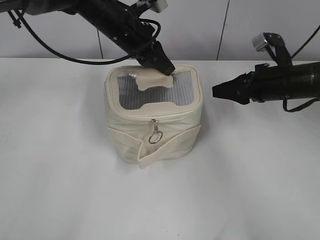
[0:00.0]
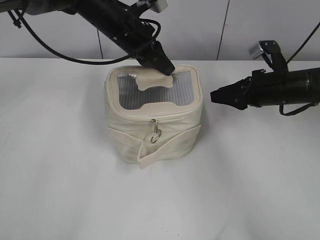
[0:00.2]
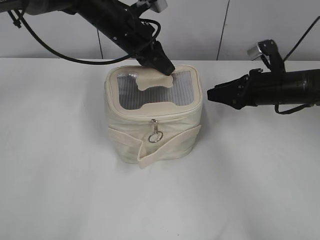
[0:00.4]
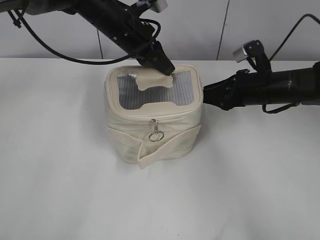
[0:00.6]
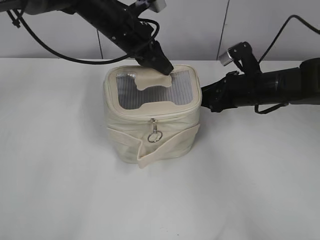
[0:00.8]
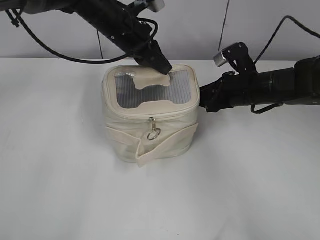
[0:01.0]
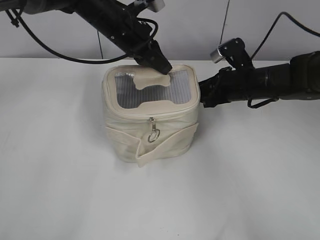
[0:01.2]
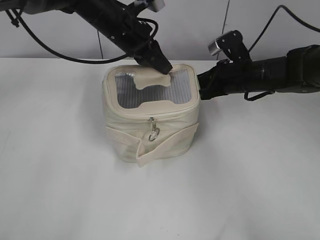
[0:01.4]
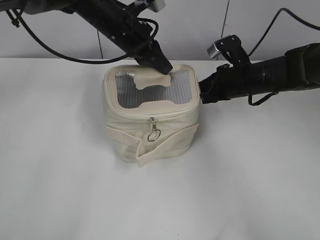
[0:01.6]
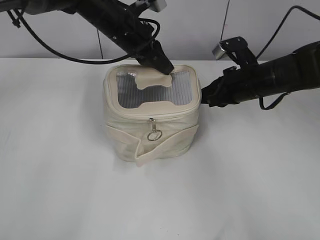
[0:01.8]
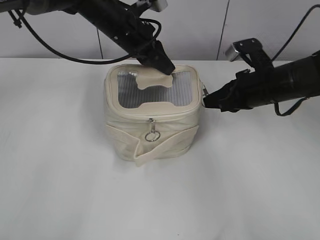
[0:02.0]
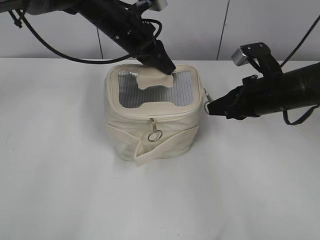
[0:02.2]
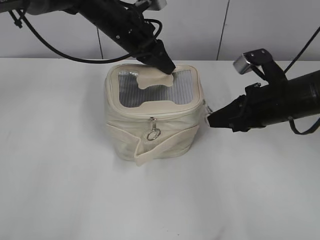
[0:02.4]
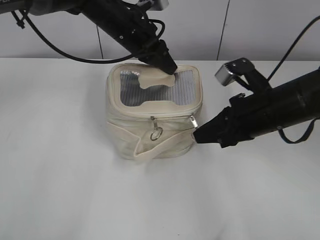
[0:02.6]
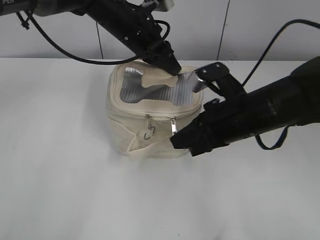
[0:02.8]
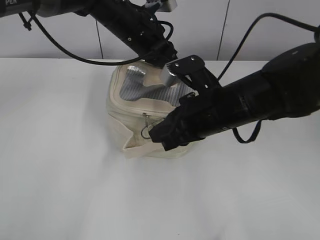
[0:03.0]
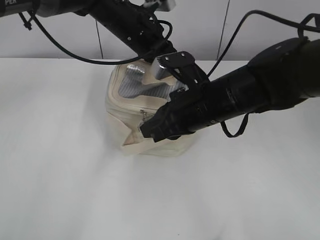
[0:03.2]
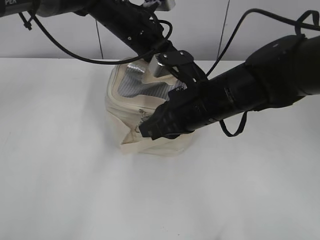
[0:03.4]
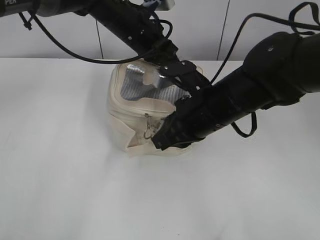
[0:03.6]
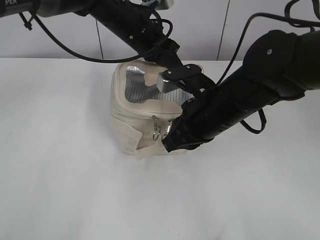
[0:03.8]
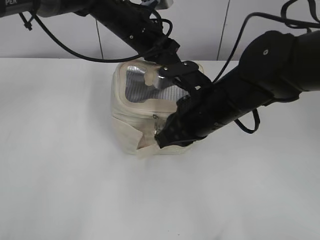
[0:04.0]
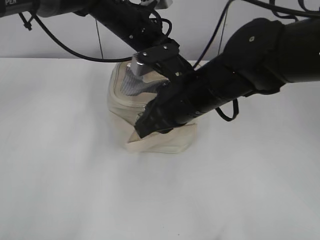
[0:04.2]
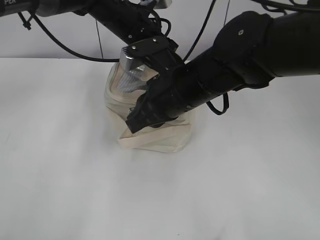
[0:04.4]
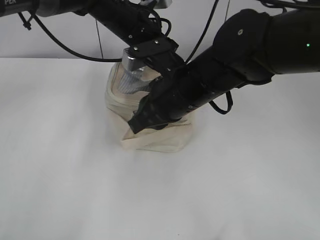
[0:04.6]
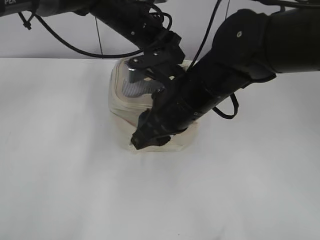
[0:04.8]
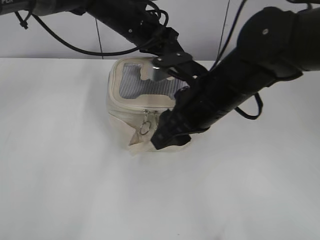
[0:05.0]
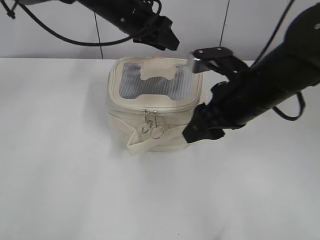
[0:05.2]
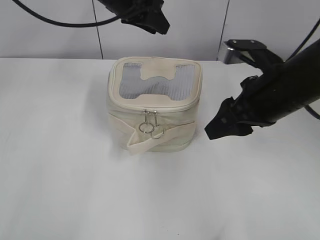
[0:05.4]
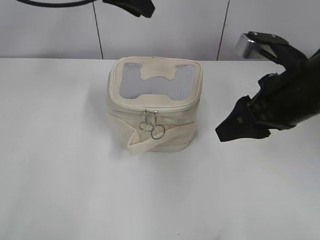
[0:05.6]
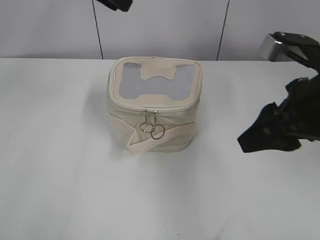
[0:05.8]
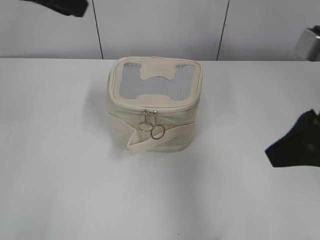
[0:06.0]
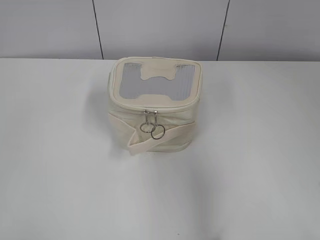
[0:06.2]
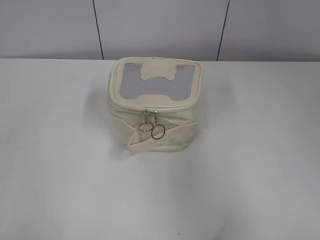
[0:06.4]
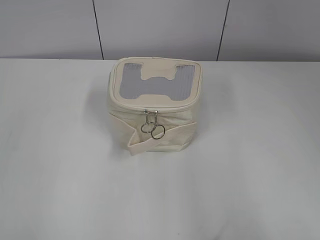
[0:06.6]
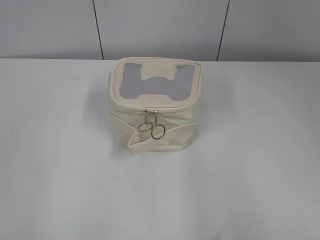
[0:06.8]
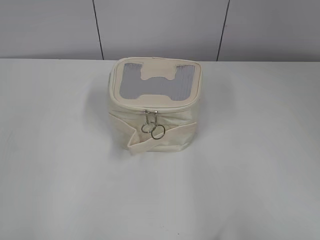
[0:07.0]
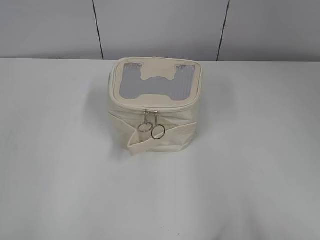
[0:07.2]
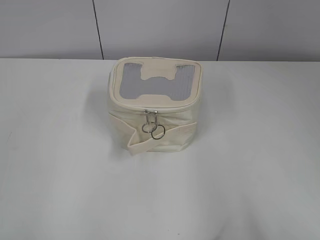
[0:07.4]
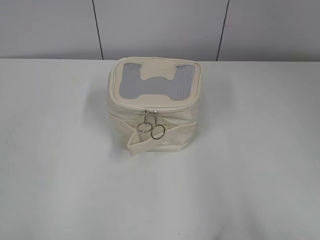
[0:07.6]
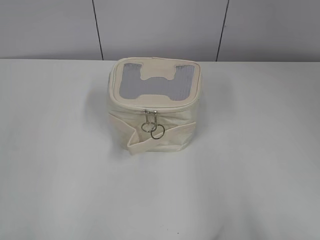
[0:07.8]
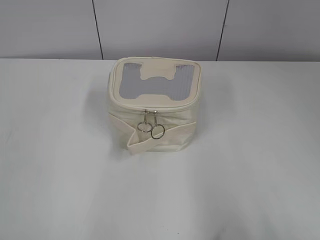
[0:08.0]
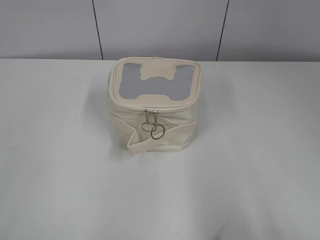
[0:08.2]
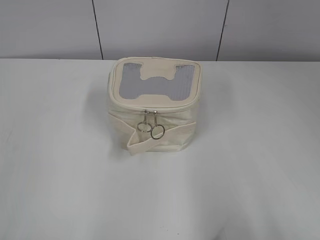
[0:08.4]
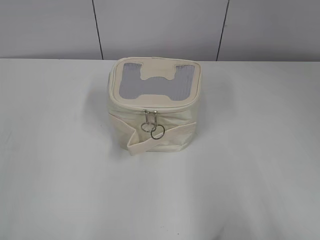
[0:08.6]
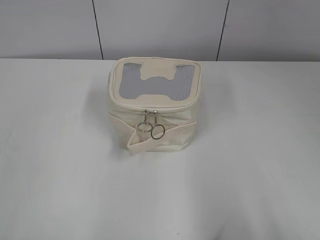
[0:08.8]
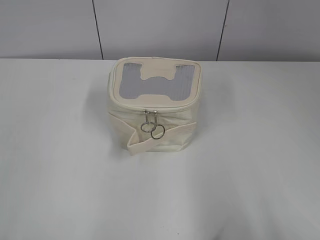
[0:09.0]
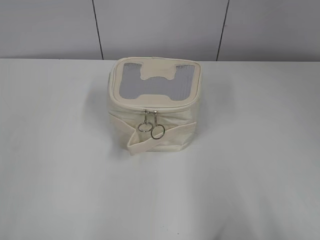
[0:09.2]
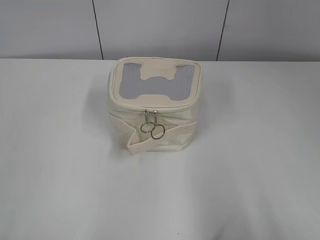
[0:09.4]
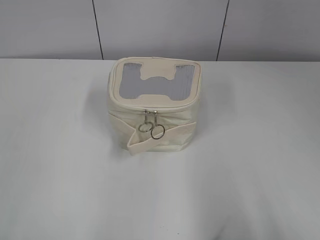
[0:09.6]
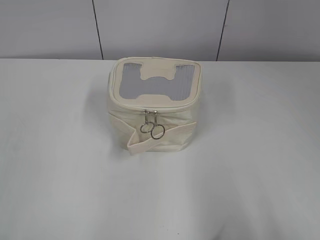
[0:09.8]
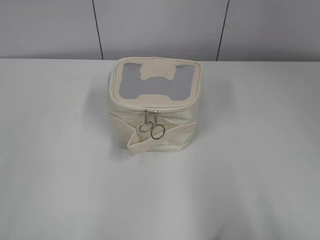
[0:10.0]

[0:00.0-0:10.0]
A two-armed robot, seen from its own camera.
Step, 0:00.0 to 0:04.8: Zip up the bag with your right hand.
0:00.0 to 0:01.4: The right gripper is displaced to the left by roughly 5 cm.
0:01.4 to 0:02.8: The right gripper goes about 15 cm backward, and closes up.
0:02.8 to 0:04.2: The right gripper travels to the left by about 10 cm.
0:04.2 to 0:05.8: The left gripper is displaced upward and to the left by some 15 cm, and opens up. The right gripper shifts about 15 cm to the right and upward, and opens its fingers.
0:05.8 to 0:07.2: The right gripper is displaced backward and to the right by some 25 cm; the left gripper travels backward and to the left by some 40 cm.
0:08.6 to 0:10.0: Both grippers stay put.

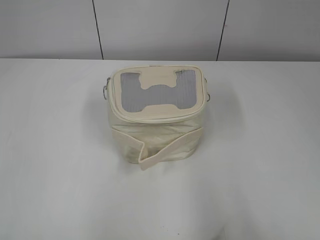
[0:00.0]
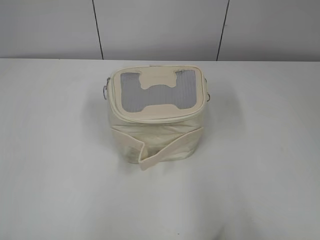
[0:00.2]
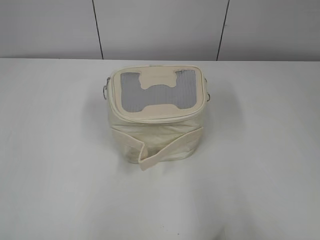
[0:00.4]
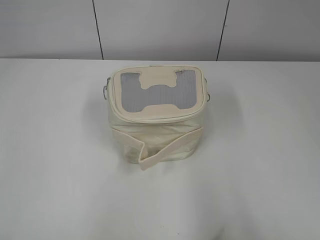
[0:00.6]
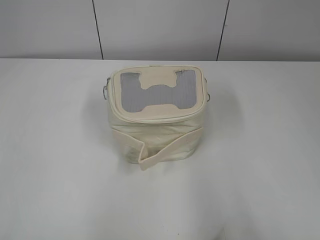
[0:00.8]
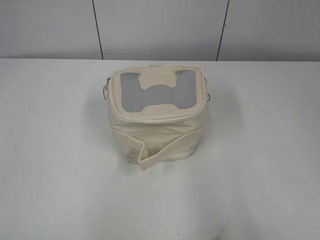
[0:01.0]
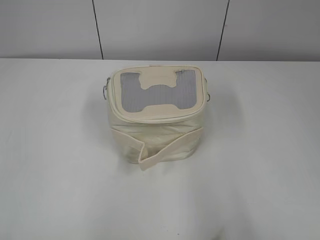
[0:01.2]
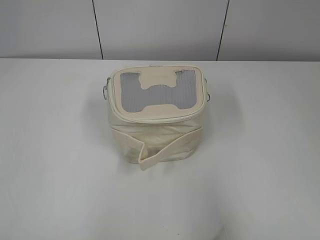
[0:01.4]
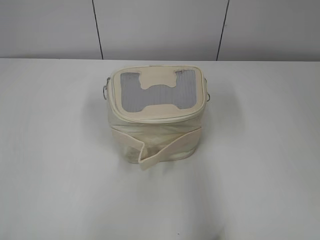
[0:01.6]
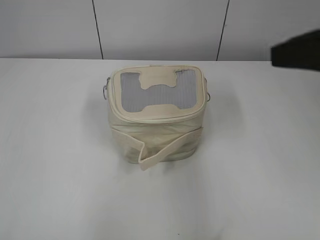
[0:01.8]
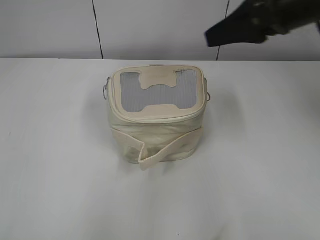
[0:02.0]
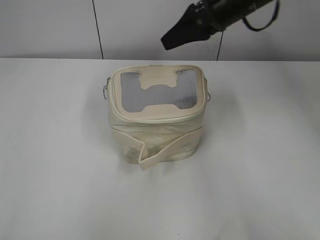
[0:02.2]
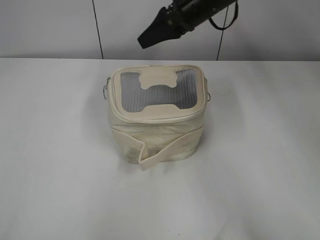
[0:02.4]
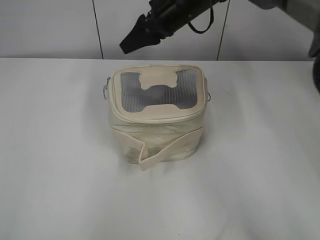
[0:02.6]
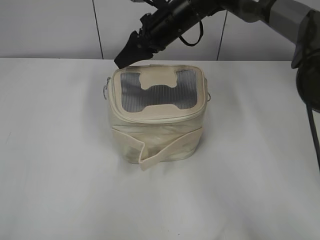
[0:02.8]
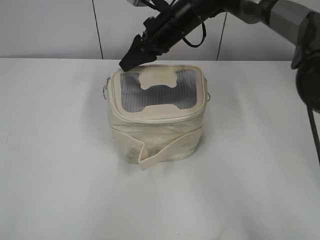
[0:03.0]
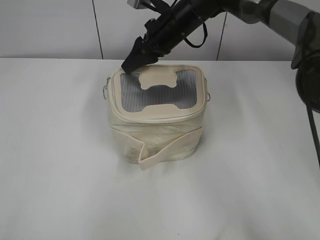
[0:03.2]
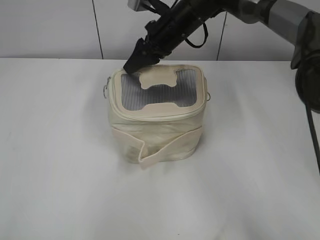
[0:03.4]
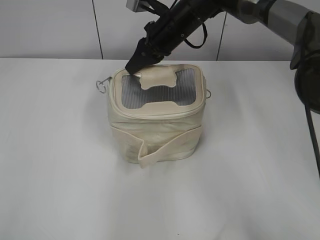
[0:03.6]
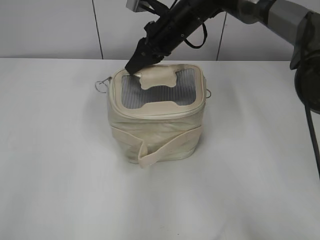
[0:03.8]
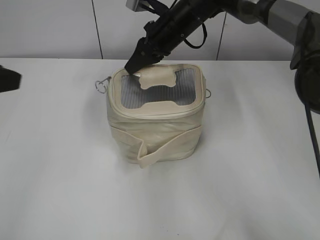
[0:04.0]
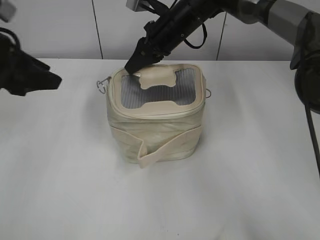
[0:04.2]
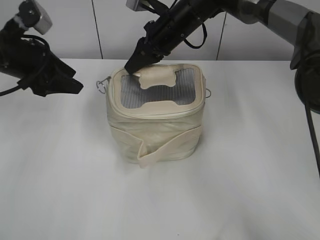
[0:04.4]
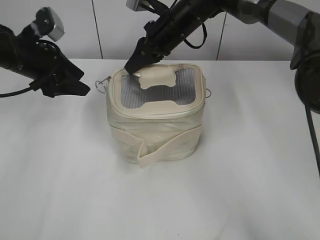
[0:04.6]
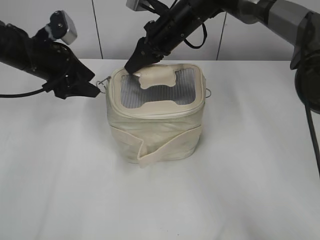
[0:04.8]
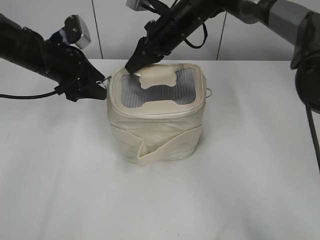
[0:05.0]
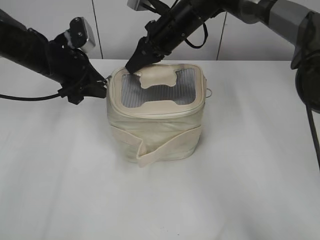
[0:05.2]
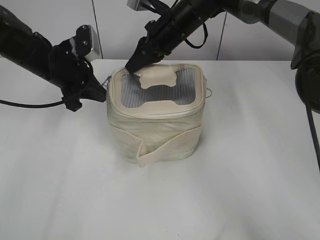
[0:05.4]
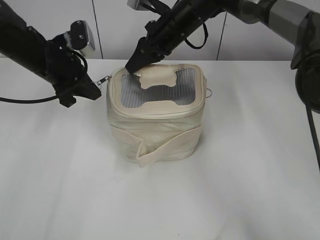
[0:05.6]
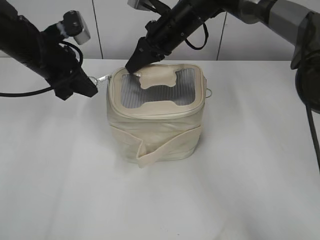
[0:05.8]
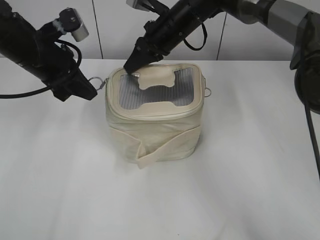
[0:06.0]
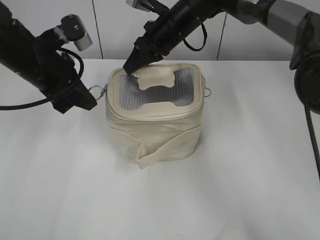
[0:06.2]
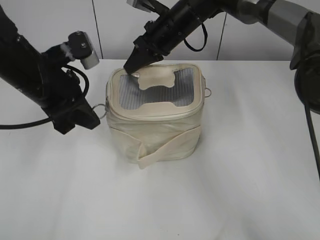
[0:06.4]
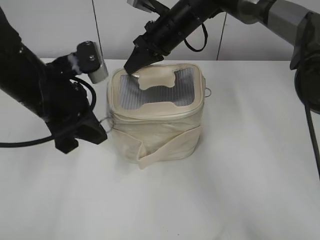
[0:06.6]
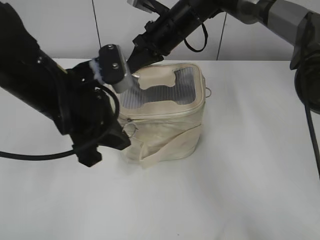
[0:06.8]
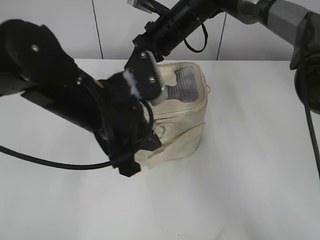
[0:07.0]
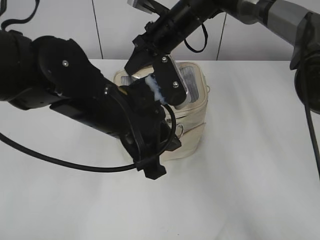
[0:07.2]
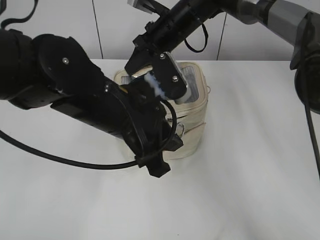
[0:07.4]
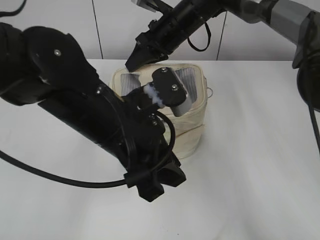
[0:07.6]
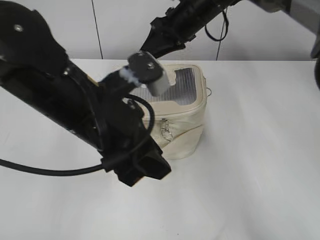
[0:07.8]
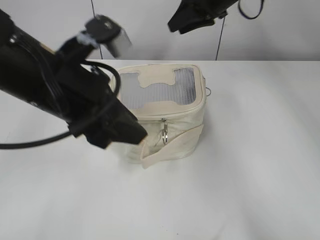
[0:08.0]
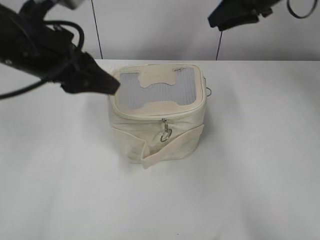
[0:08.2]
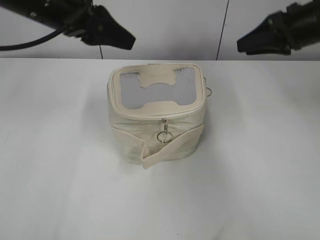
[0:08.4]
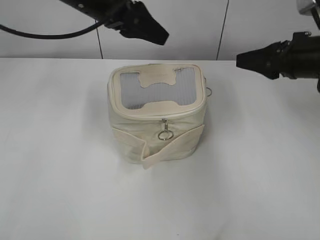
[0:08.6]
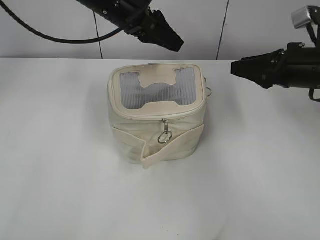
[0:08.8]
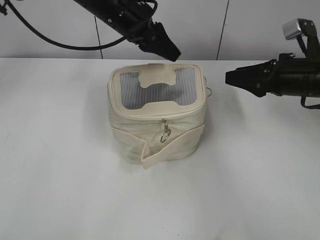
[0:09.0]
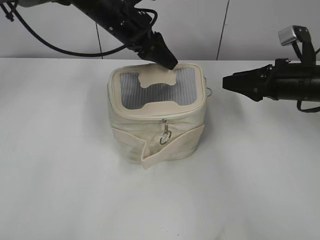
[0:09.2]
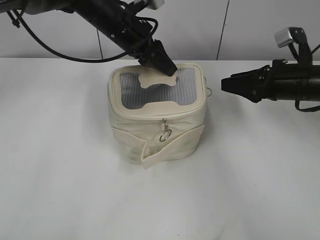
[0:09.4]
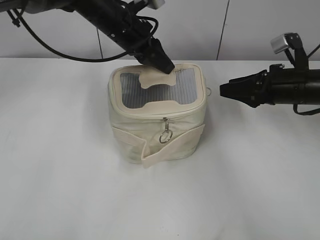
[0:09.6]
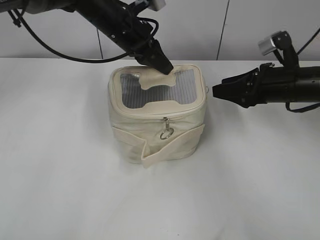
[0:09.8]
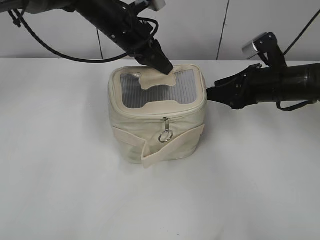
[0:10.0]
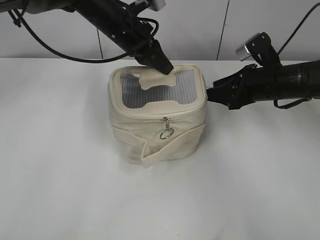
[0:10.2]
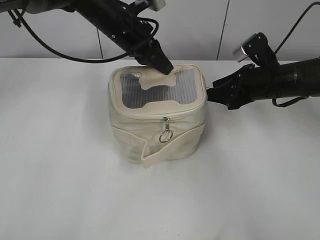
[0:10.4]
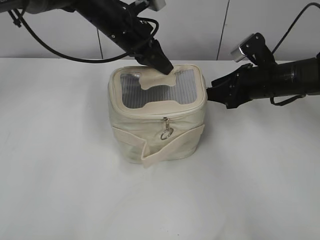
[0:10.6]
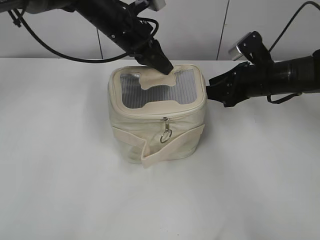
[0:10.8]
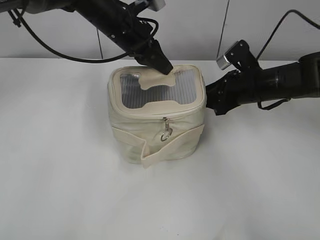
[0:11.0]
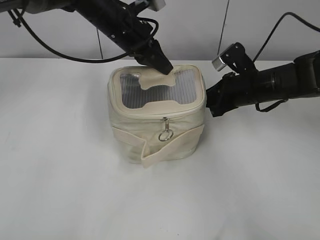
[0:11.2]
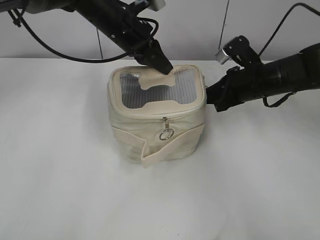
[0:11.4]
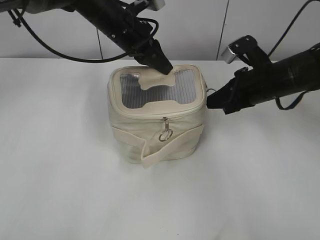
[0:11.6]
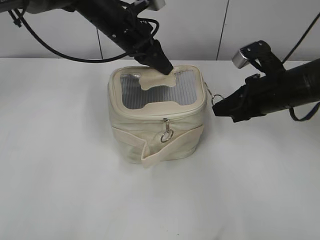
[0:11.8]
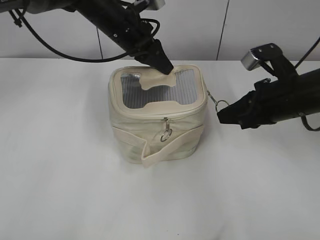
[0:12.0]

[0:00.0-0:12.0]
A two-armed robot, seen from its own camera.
Step, 0:00.0 to 0:07.4: Zip up the bag with your left hand.
0:01.6 to 0:03.0: The right gripper moves forward and to the left, about 50 cm.
0:03.0 to 0:04.4: The right gripper closes; the left gripper shifts some 35 cm forward, and opens its fingers.
0:04.4 to 0:06.0: The left gripper closes up.
0:06.0 to 0:07.6: The left gripper moves backward and to the right, some 20 cm.
0:07.6 to 0:09.0: The left gripper heads forward, covering approximately 20 cm, and opens. The right gripper heads to the right and backward, covering roughly 25 cm, and opens up.
0:09.0 to 0:10.4: The left gripper closes up. Meanwhile the right gripper changes place by about 5 cm.
0:10.4 to 0:12.0: The right gripper goes roughly 5 cm backward, and closes its fingers.
